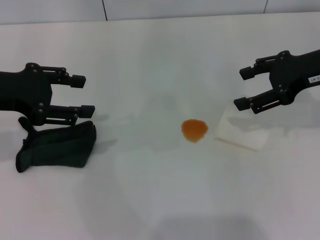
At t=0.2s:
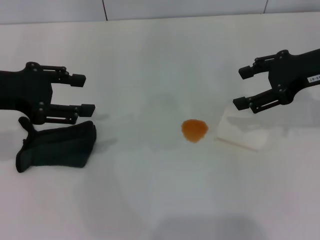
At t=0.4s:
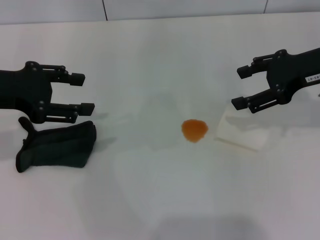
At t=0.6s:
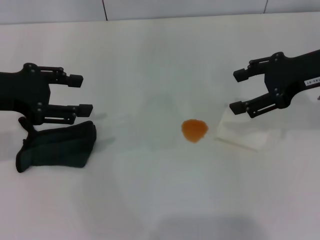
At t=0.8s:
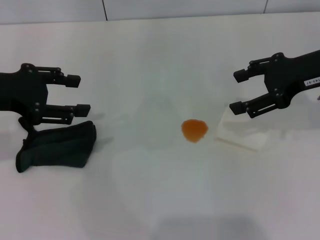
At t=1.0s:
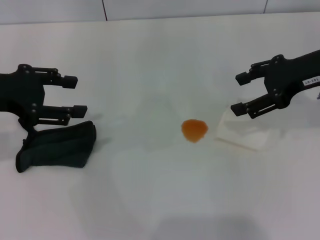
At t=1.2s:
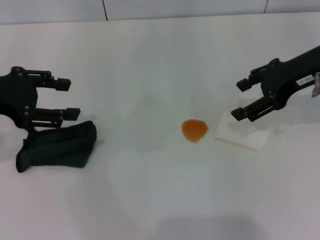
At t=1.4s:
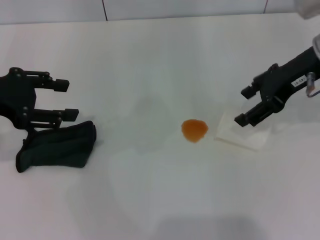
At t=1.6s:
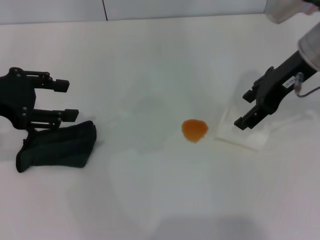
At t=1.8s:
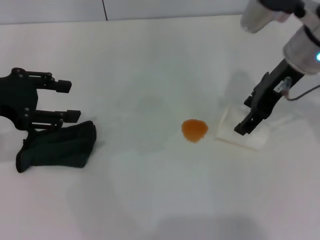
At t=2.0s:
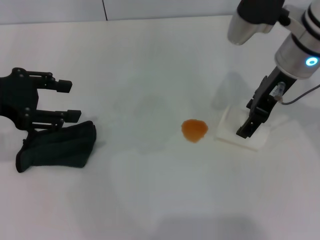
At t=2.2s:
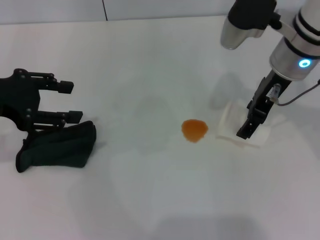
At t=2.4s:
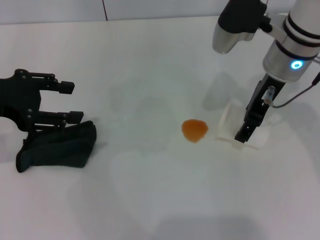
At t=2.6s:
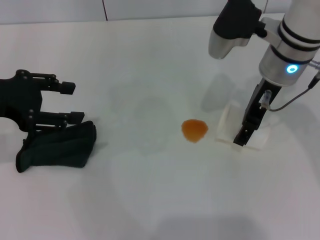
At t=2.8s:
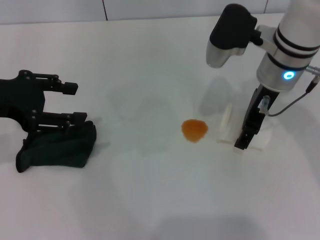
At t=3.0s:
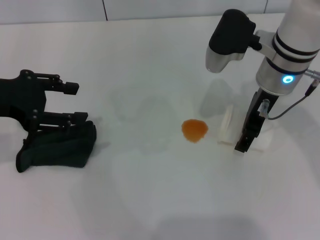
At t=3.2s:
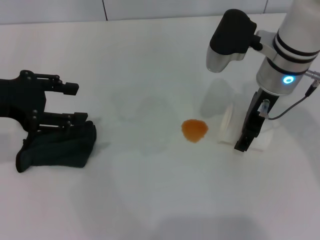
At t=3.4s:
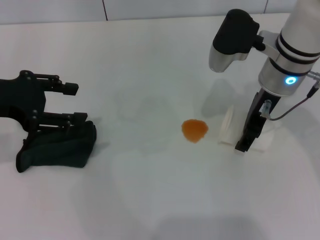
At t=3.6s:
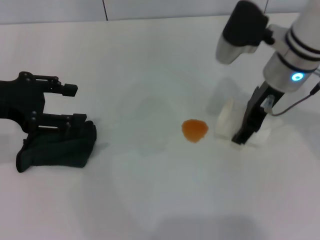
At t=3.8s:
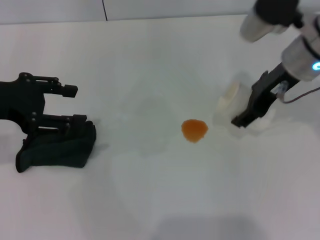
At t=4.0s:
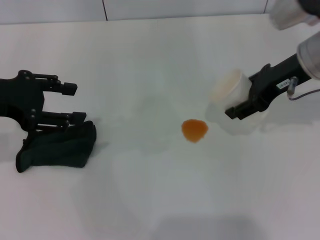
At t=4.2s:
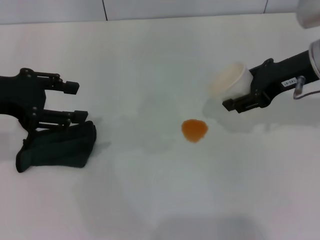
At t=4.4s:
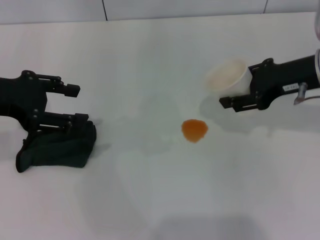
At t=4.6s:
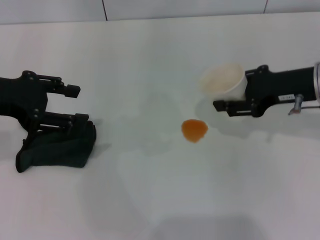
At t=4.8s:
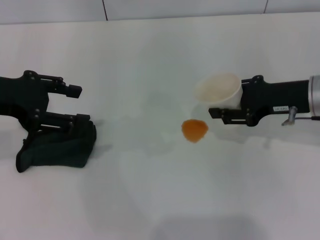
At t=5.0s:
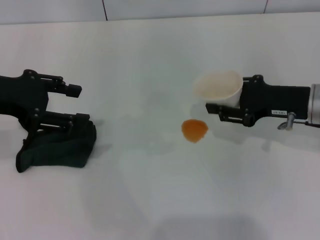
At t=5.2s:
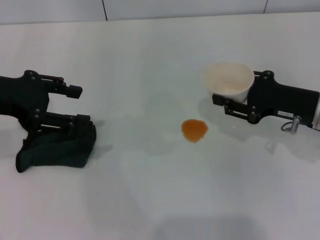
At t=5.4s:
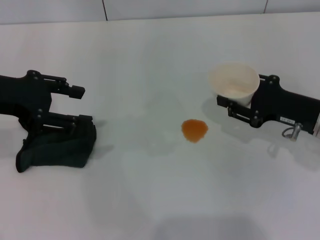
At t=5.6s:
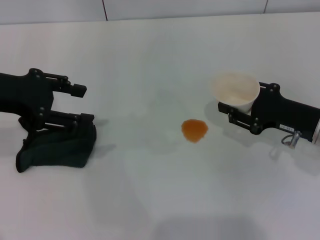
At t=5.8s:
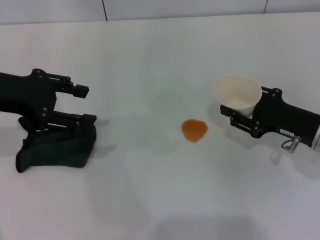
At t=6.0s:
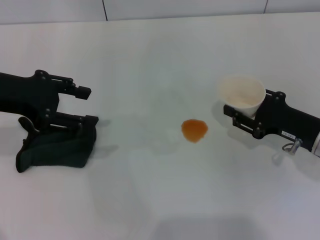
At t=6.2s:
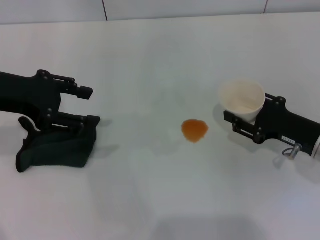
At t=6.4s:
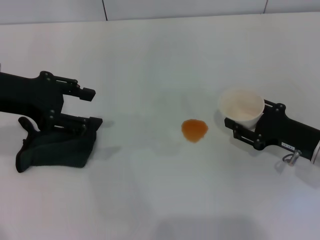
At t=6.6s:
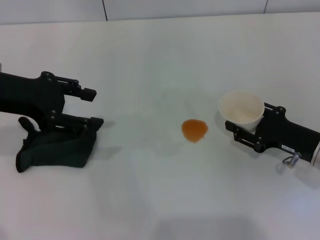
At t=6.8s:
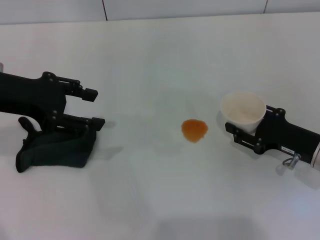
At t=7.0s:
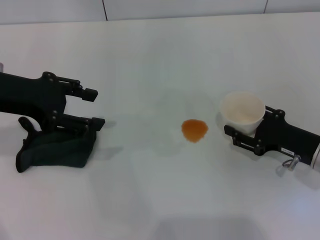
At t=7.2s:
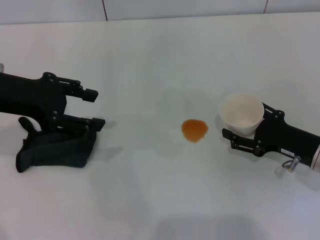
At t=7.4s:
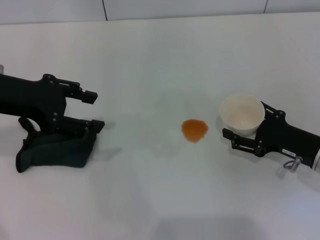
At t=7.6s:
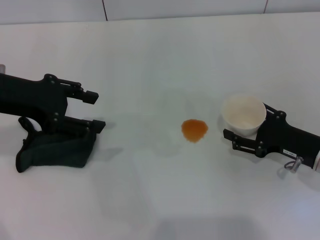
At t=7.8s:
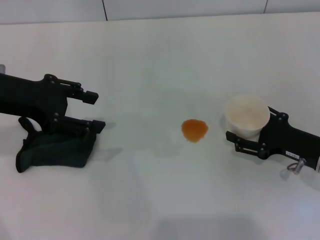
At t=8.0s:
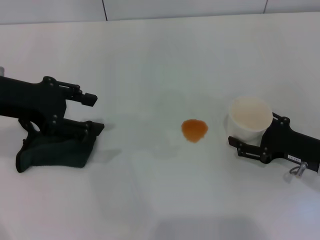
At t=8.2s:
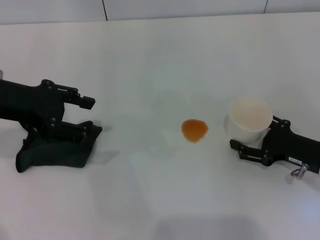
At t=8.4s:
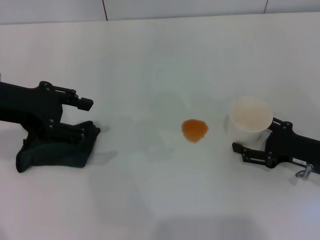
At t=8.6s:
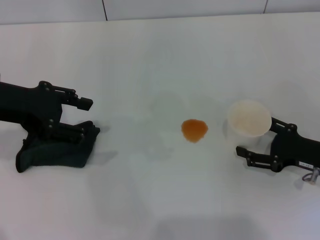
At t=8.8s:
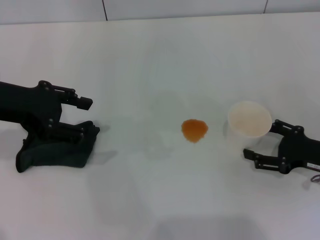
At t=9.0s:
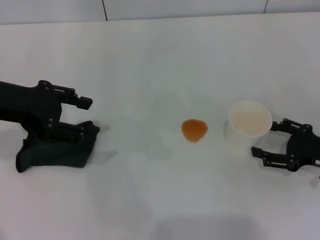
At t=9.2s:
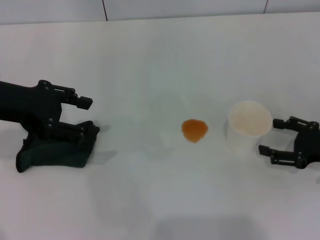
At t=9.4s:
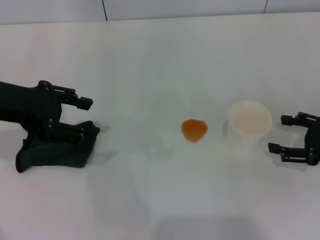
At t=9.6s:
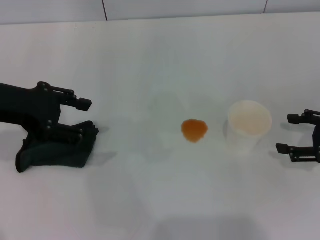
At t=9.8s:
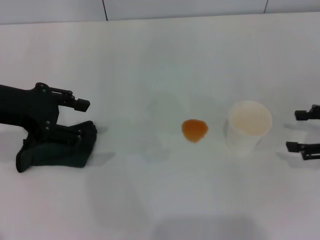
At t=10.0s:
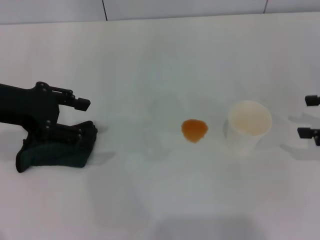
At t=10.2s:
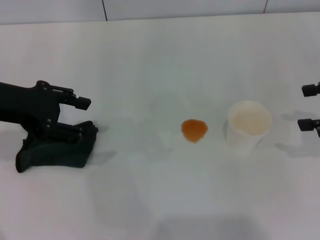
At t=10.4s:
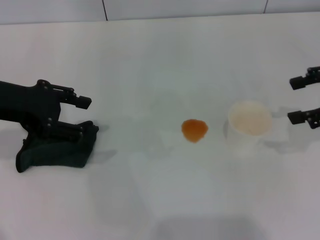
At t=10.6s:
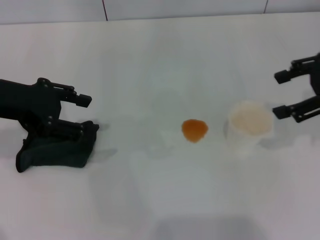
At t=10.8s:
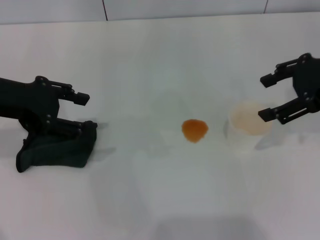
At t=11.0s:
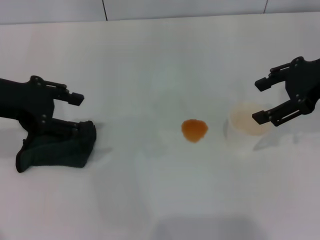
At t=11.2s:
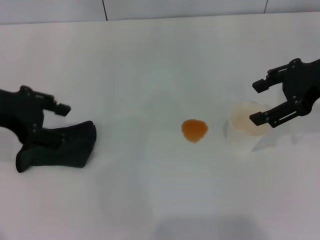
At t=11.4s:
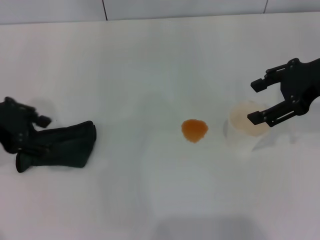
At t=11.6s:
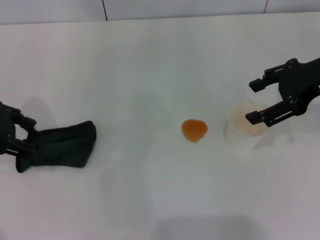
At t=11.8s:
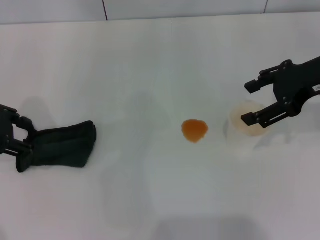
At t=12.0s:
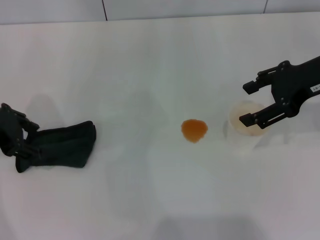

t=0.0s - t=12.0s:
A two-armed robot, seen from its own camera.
Step, t=0.0s - t=3.2s: Grasp the paper cup with the right gripper.
Step, t=3.4s - t=8.4s: Stand the paper cup upright with the right gripper.
t=0.0s - t=1.6s: The right gripper heads to the left, covering approximately 5 cm.
t=1.6s - t=3.0s: The right gripper travels to the left by some 5 cm.
t=3.0s - t=4.4s: The right gripper heads to the right, covering approximately 10 cm, and closes its fingers.
t=4.4s - t=6.0s: The right gripper heads downward and backward, covering about 15 cm.
t=6.0s - t=7.6s: The right gripper opens its fingers.
t=7.6s - t=9.0s: The right gripper changes place by about 5 cm.
t=9.0s - t=10.4s: The right gripper heads upward, covering roughly 20 cm.
t=10.4s - t=12.0s: The right gripper travels to the left by some 10 cm.

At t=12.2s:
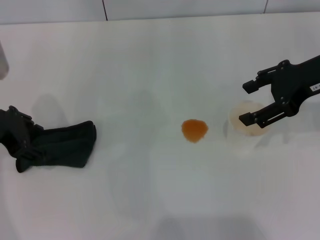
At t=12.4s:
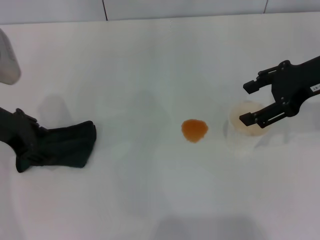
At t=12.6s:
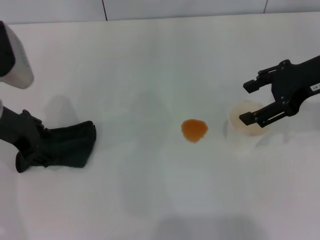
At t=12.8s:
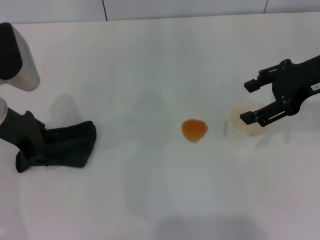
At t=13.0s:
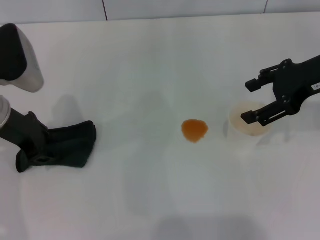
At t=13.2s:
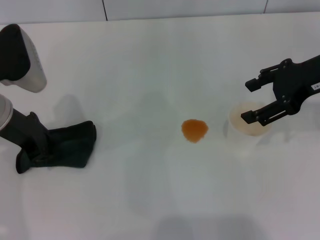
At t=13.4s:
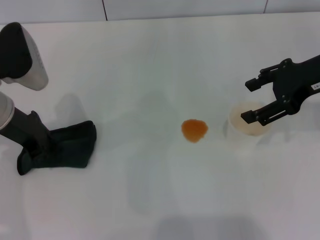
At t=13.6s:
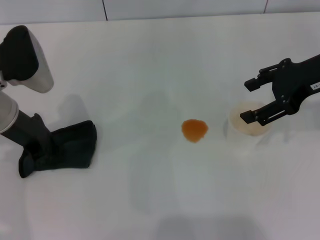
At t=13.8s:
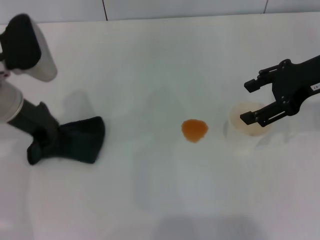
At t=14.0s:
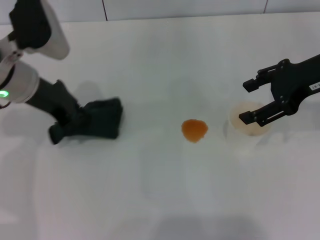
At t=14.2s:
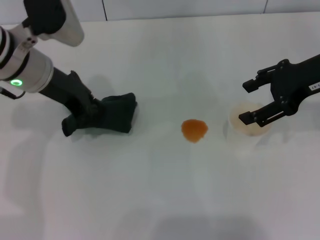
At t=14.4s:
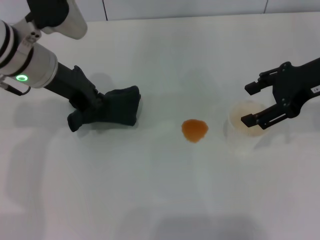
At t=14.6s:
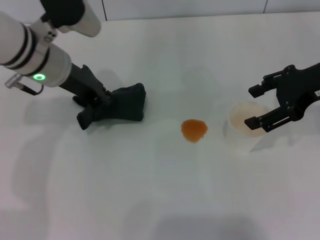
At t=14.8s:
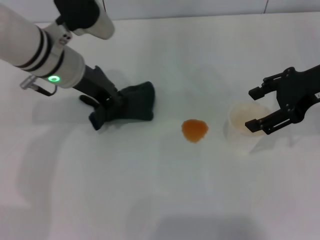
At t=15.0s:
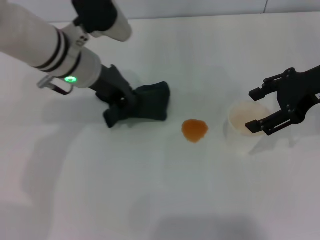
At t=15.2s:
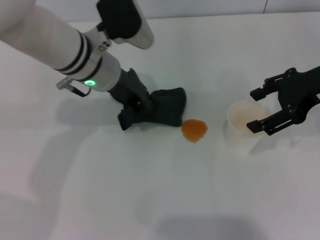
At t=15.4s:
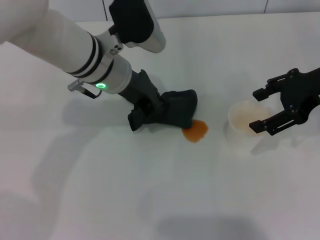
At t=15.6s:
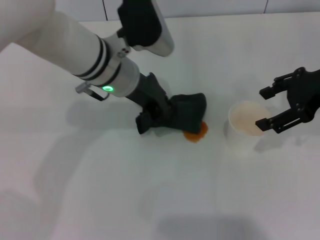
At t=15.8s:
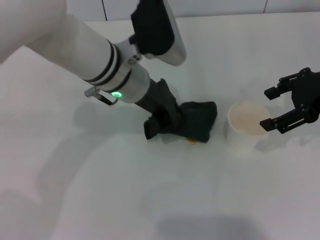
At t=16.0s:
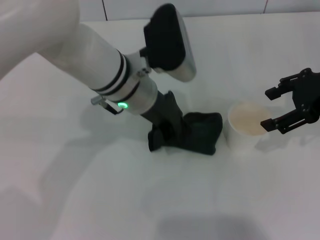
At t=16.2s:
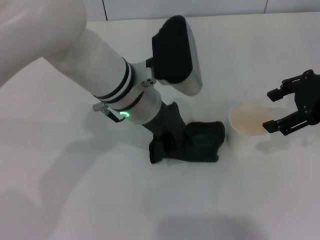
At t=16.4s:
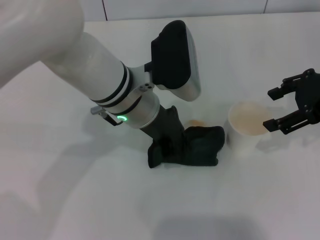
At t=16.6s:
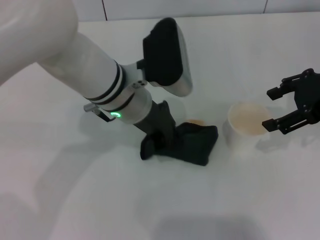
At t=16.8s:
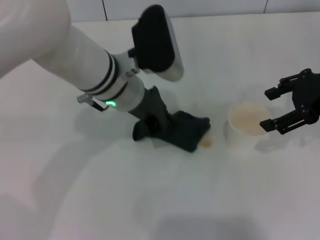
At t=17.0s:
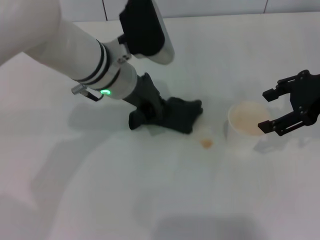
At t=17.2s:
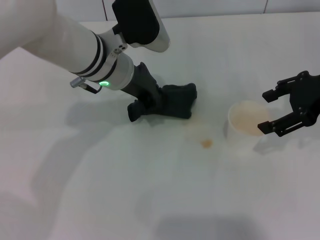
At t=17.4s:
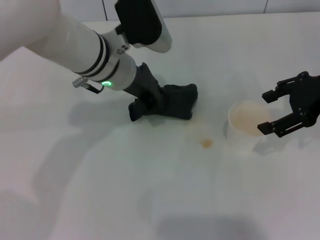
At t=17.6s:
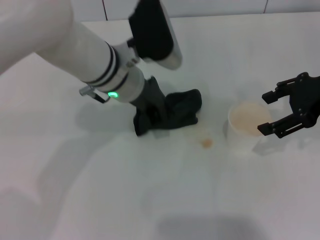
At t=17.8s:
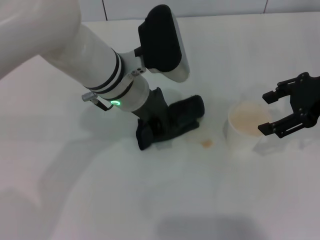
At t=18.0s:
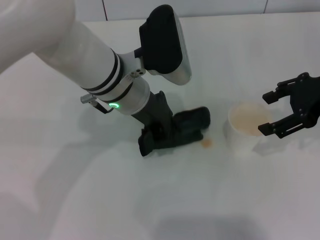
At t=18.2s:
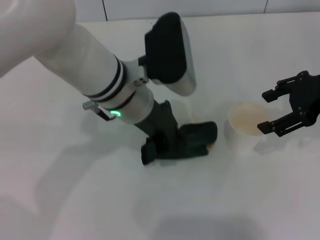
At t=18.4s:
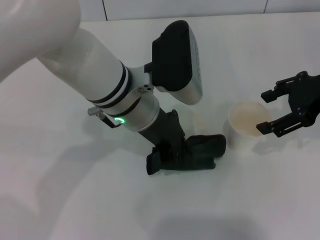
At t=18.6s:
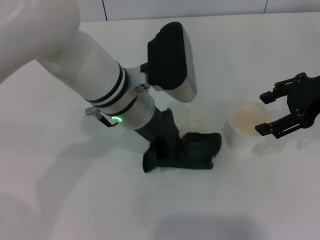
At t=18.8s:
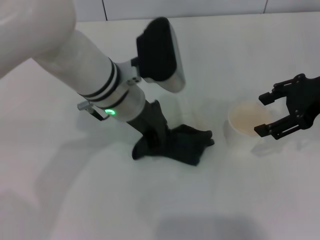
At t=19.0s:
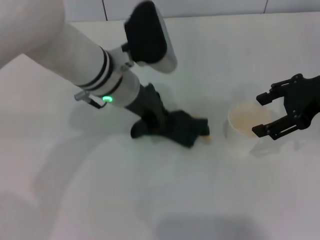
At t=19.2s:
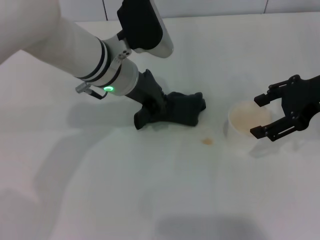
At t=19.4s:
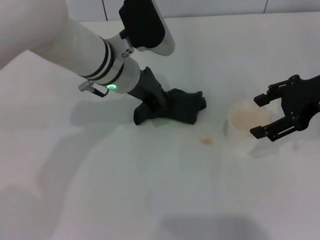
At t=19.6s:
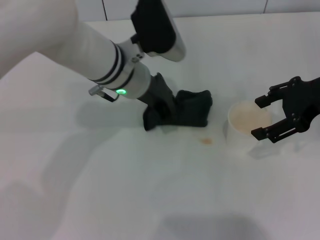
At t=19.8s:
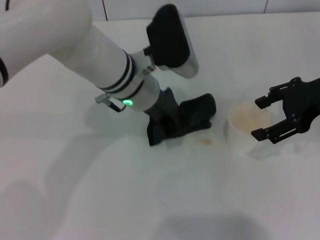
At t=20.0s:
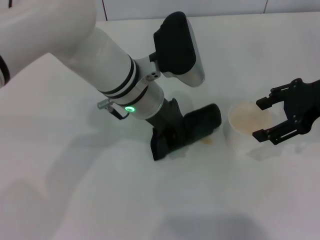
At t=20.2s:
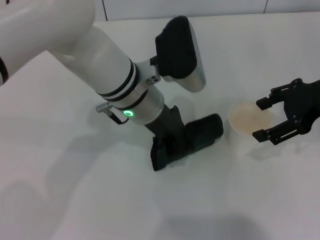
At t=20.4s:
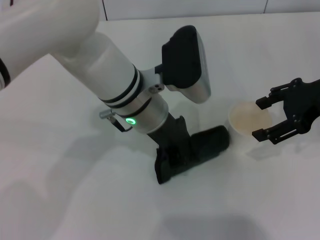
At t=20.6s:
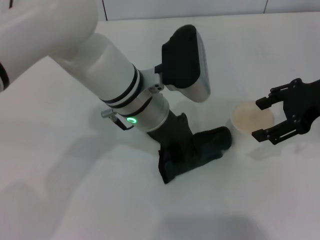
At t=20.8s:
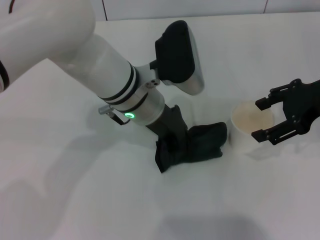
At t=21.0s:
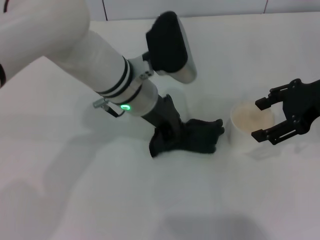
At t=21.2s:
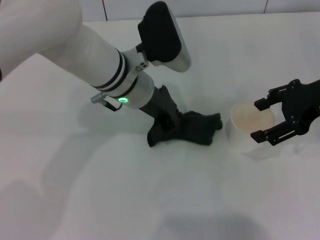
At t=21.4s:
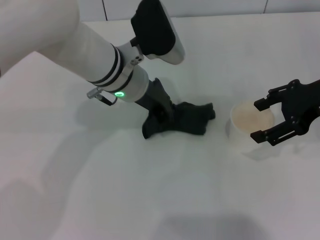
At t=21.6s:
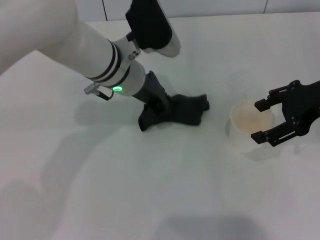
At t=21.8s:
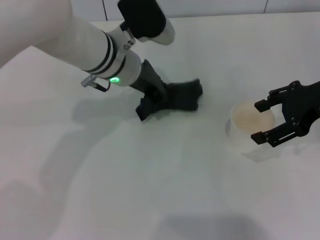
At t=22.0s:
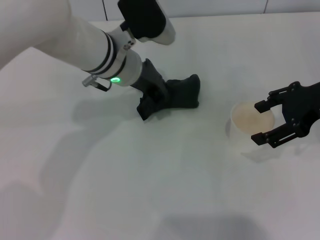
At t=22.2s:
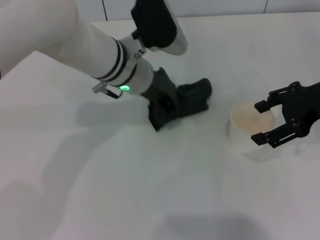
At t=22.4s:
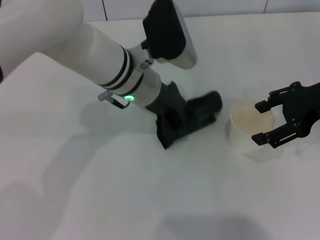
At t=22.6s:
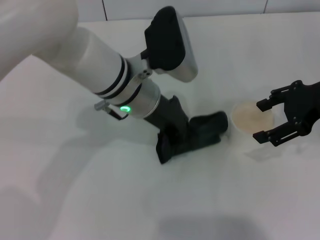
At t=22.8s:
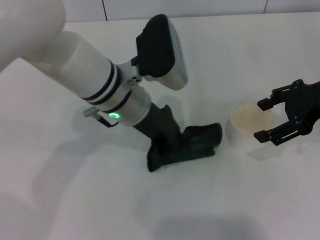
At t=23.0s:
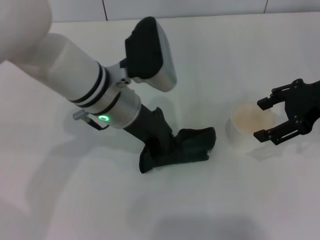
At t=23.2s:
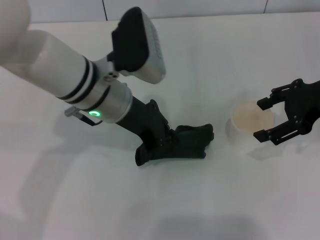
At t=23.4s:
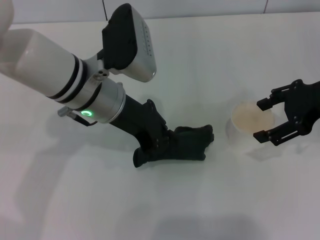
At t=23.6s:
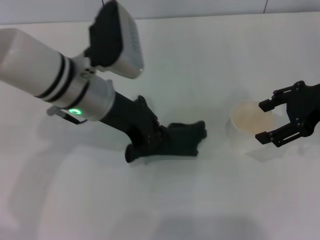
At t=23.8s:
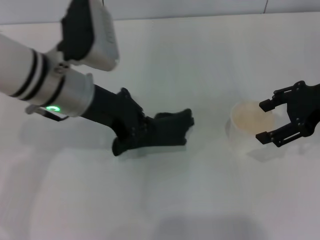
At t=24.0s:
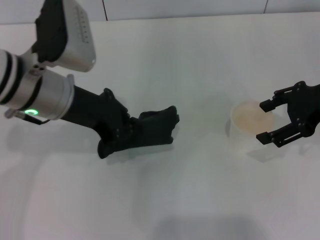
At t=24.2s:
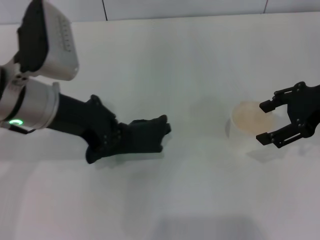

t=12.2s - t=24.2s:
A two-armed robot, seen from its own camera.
t=12.2s - t=13.8s: The left gripper moves some 5 cm, and closes its fingers.
t=13.8s - t=15.2s: The left gripper travels to the right by roughly 10 cm.
t=15.2s - t=16.6s: The left gripper shifts by roughly 5 cm.
t=16.6s - t=21.2s: The grippers make only small movements.
t=21.2s - t=22.6s: The grippers stay close to where they were, moving slightly.
t=22.6s - t=24.2s: The left gripper travels to the left by about 15 cm.
